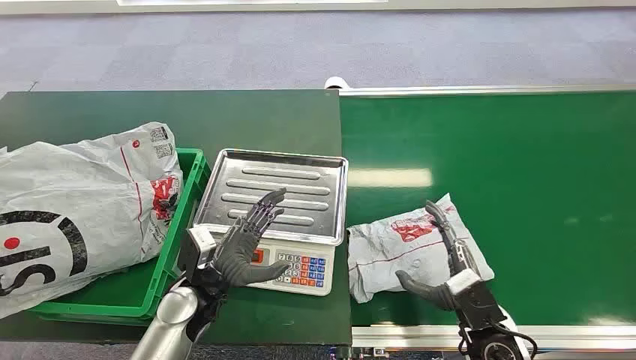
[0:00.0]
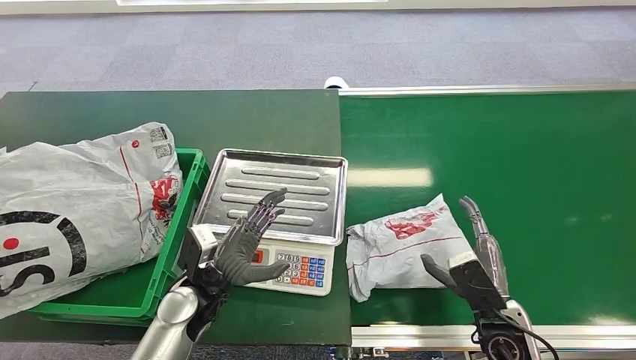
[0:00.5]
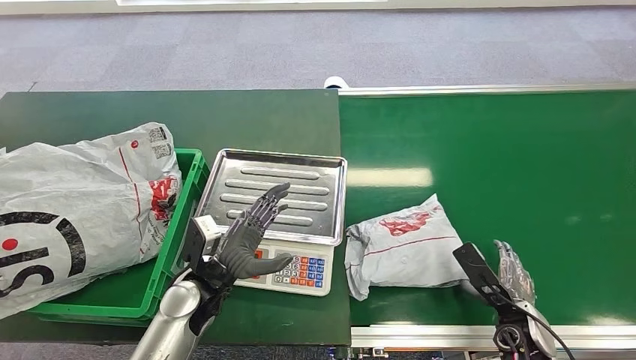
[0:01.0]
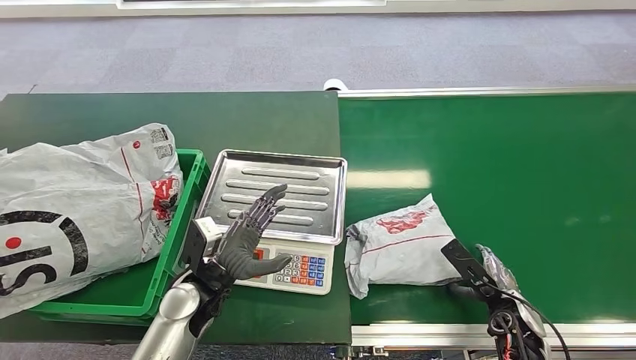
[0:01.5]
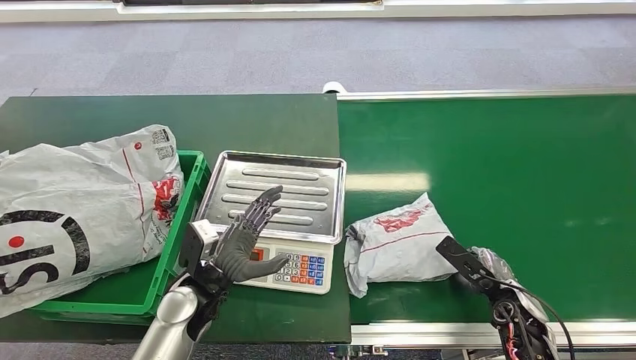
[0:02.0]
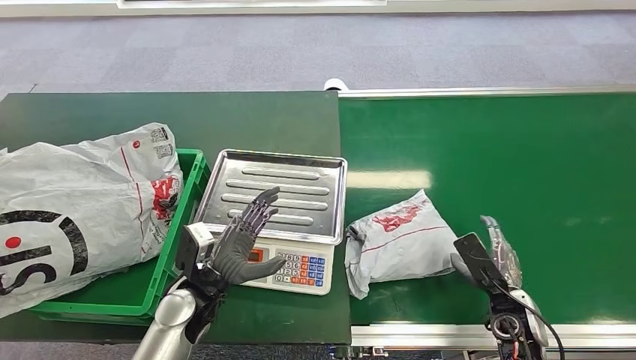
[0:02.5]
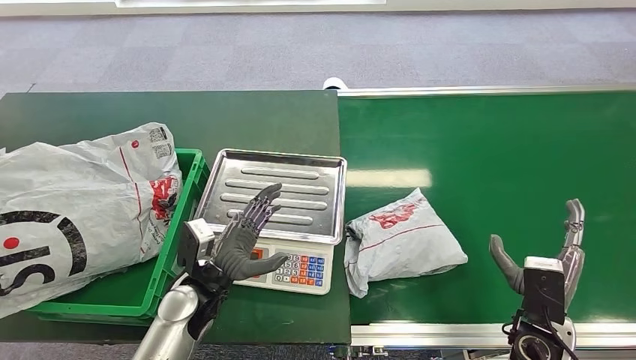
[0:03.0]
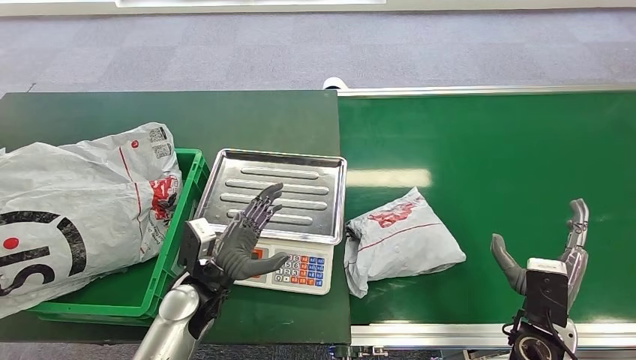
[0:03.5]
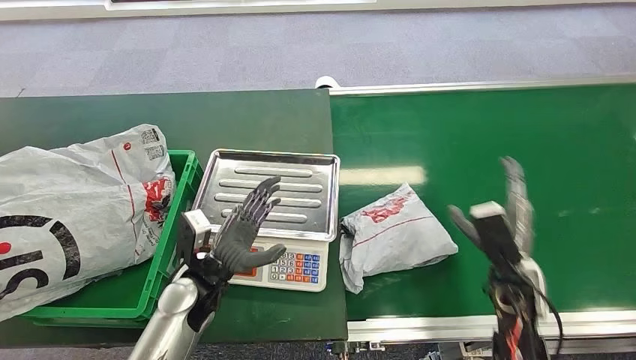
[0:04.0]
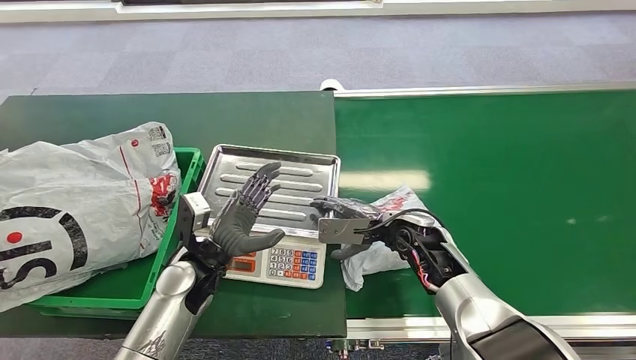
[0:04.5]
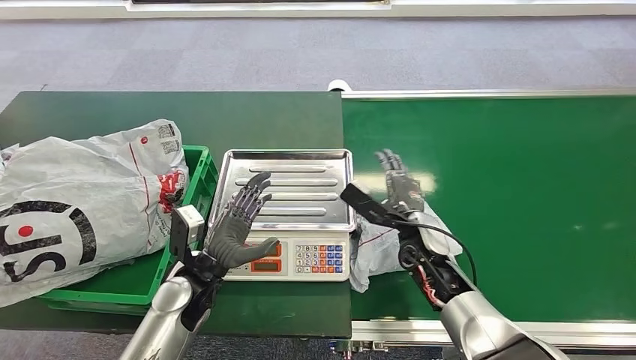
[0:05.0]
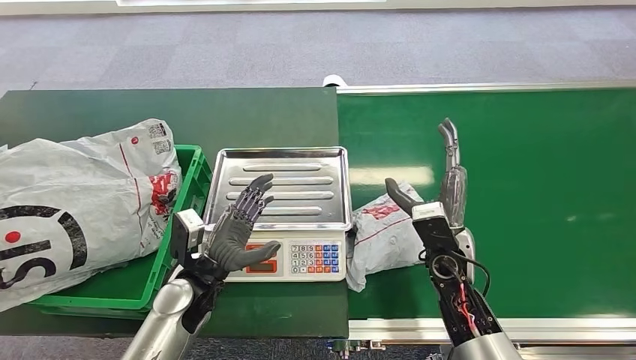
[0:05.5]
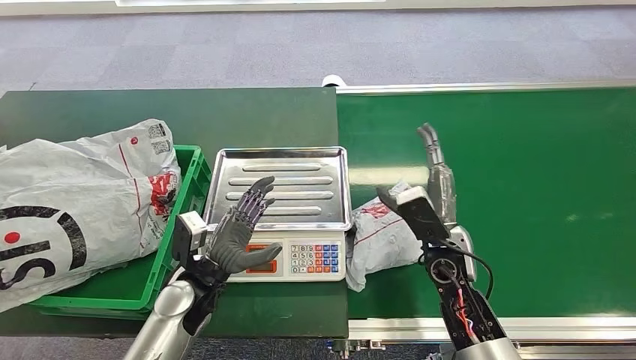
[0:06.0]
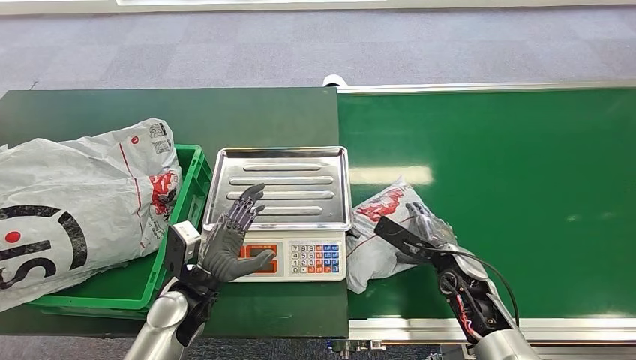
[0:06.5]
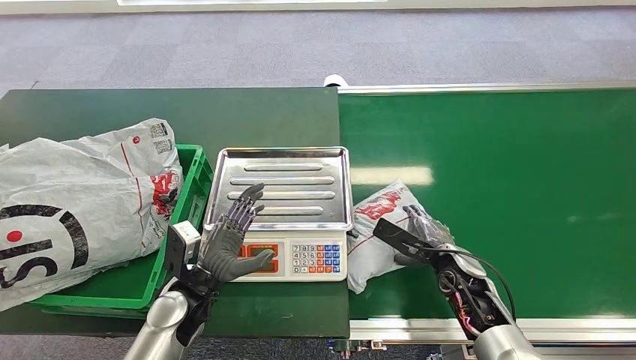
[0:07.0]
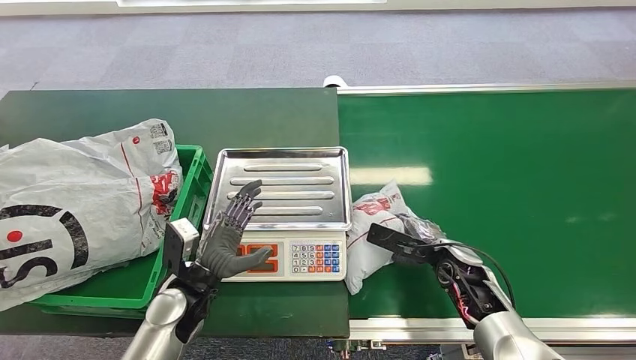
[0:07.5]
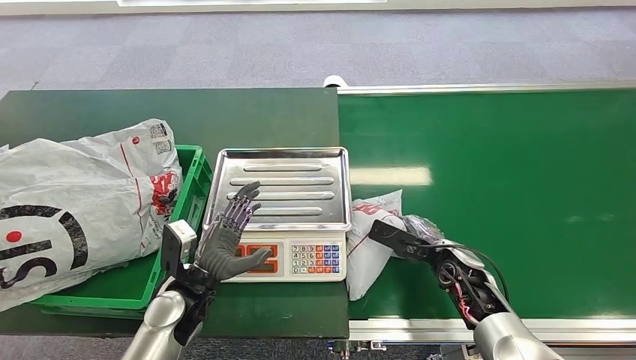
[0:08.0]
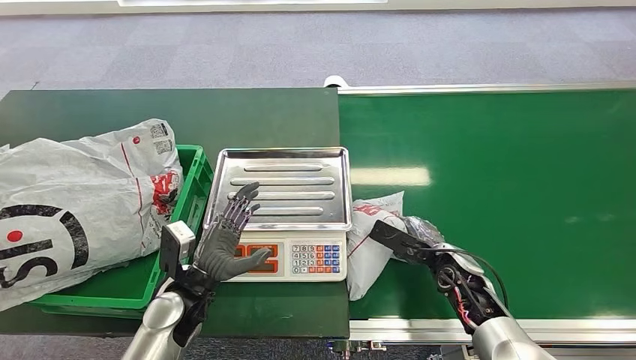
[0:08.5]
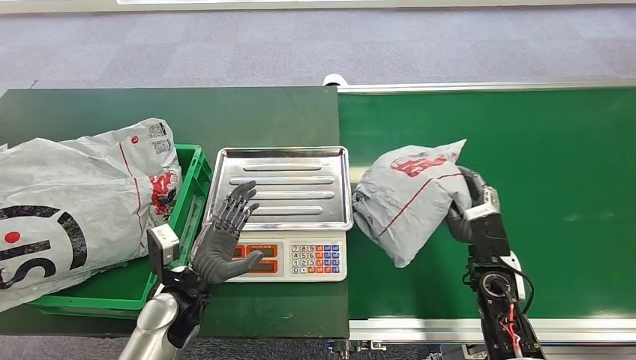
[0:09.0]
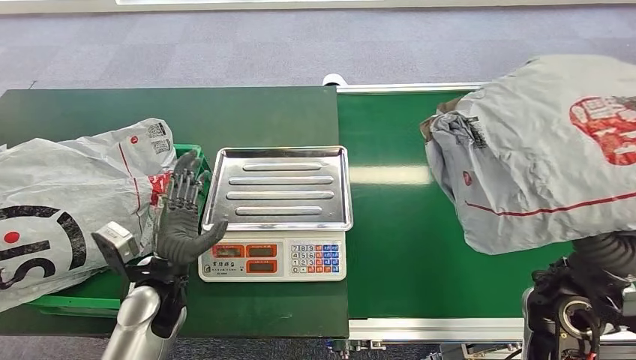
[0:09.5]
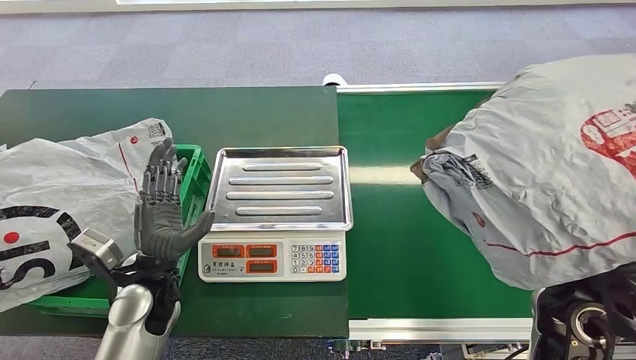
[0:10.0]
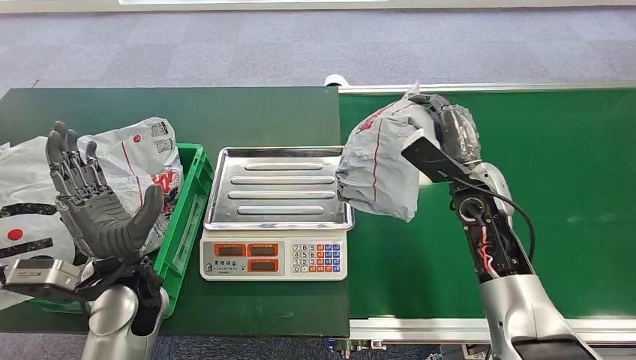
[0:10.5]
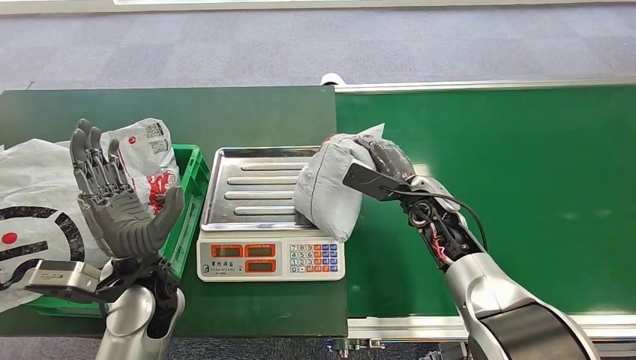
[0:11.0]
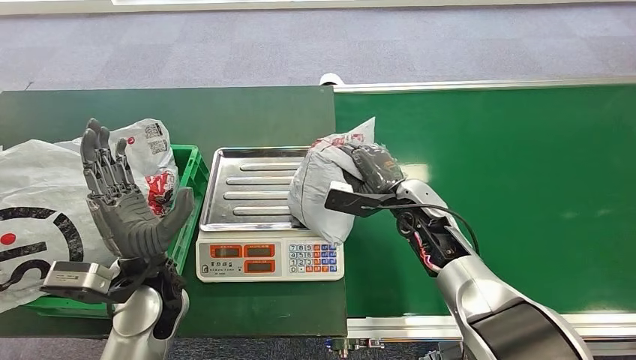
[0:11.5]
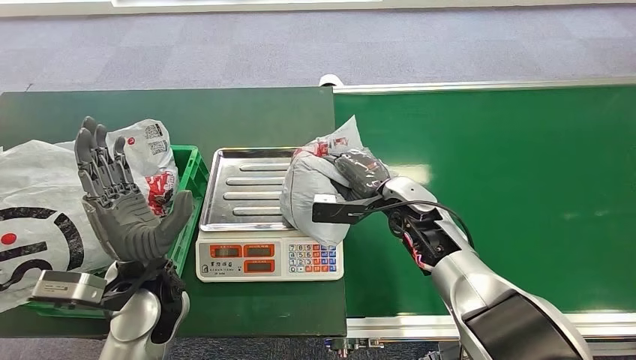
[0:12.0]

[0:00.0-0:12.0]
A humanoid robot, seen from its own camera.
Step, 0:00.0 to 0:09.0: Pick up the package from the conveyor belt.
0:06.0 to 0:08.0: The right hand is displaced downward and to the right by roughly 10 cm.

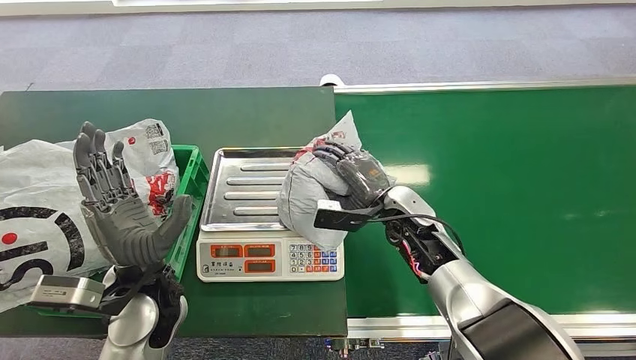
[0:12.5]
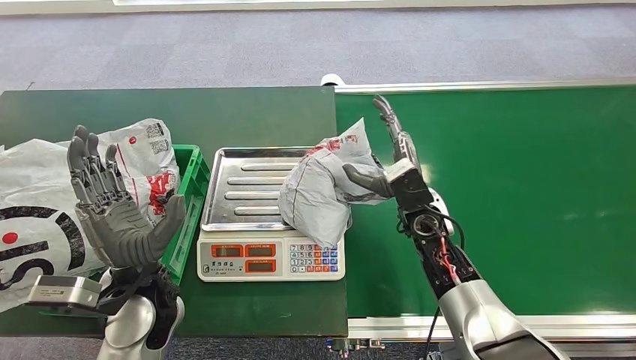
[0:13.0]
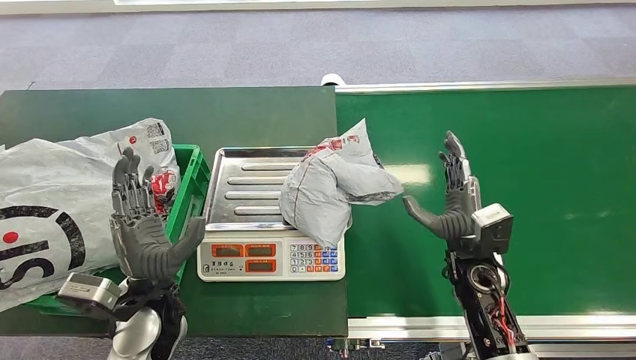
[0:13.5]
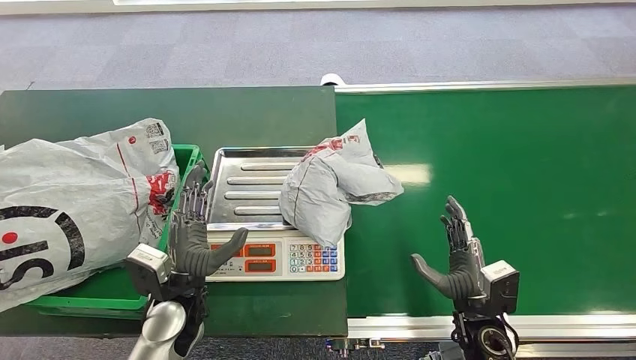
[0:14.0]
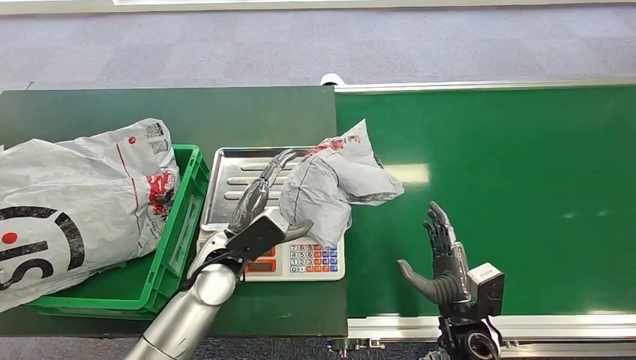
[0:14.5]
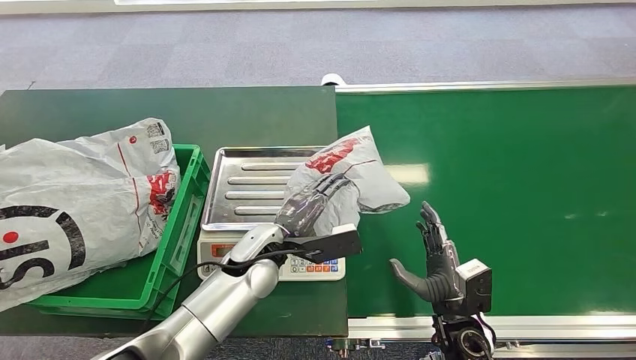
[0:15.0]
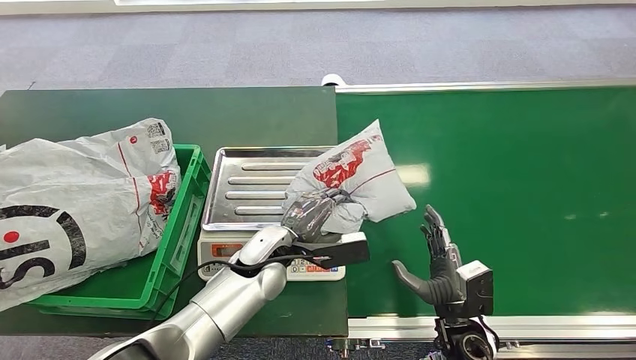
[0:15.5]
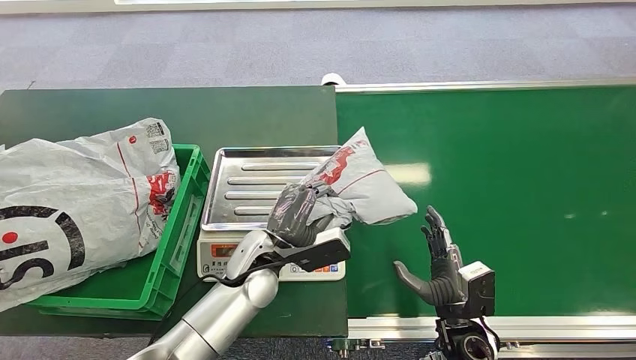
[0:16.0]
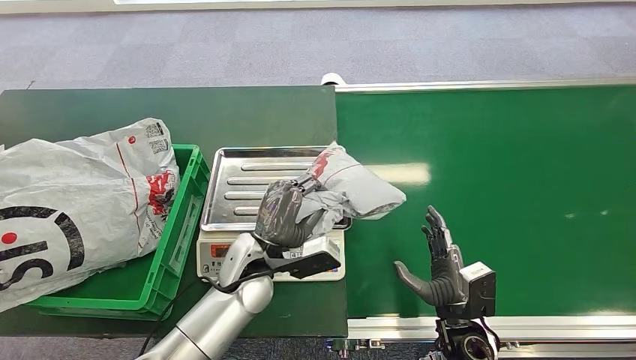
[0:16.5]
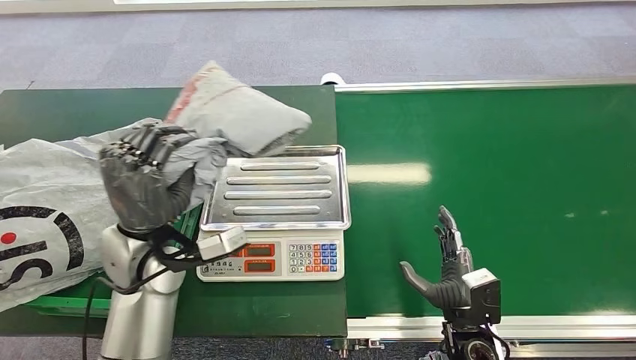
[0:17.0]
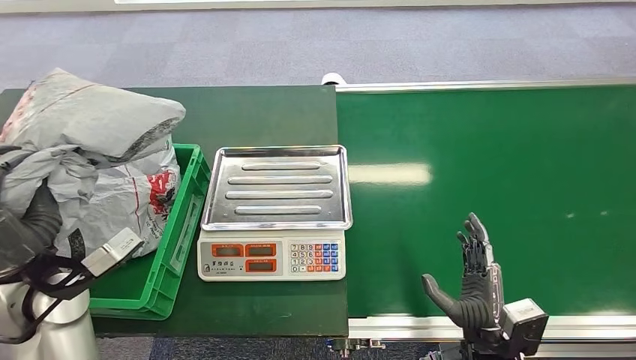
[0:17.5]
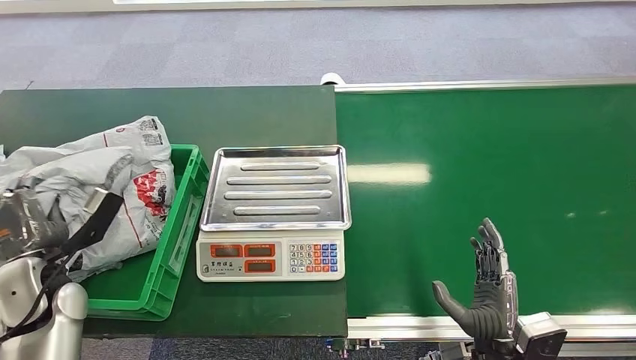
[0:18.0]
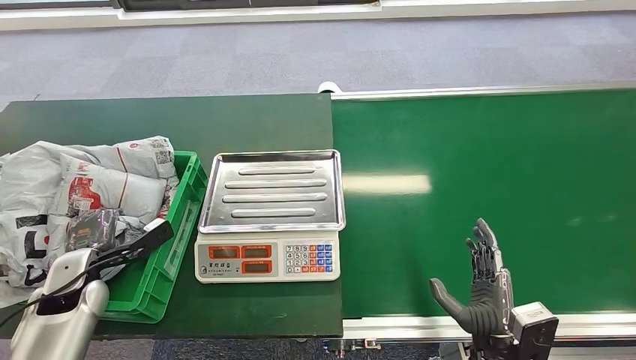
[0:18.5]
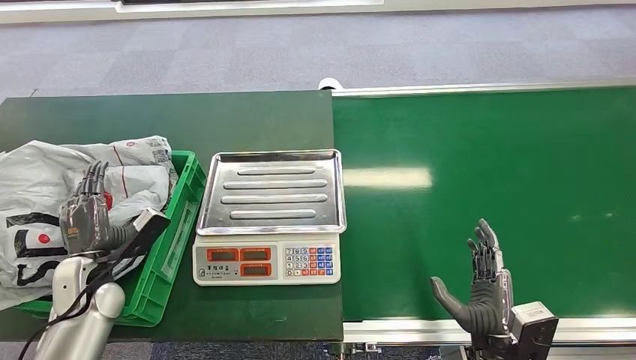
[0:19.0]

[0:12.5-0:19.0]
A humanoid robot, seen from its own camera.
Step, 0:14.0 to 0:17.0: Pick up the package from the inbound machine.
Step, 0:18.0 to 0:19.0: Place the package into the parcel locker.
0:14.5 to 0:17.0: The left hand moves upward and to the left, some 10 cm.

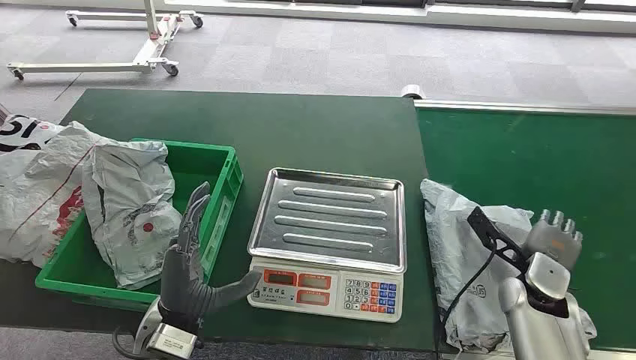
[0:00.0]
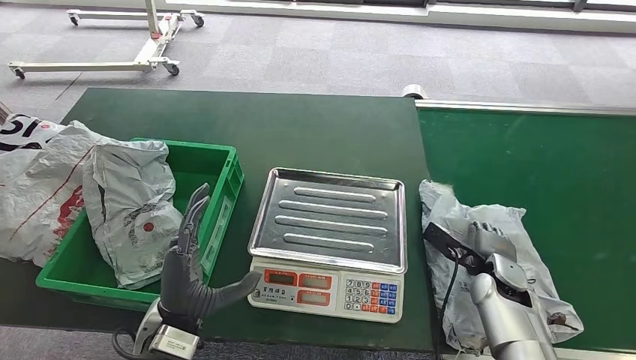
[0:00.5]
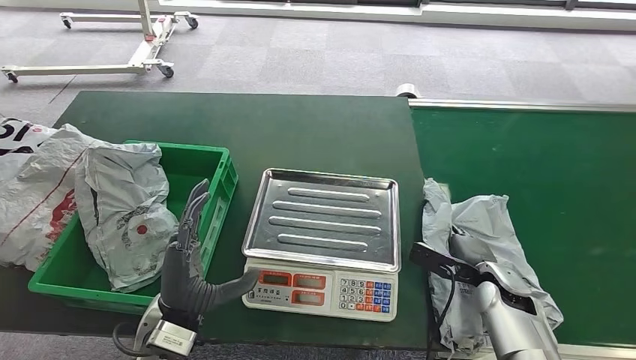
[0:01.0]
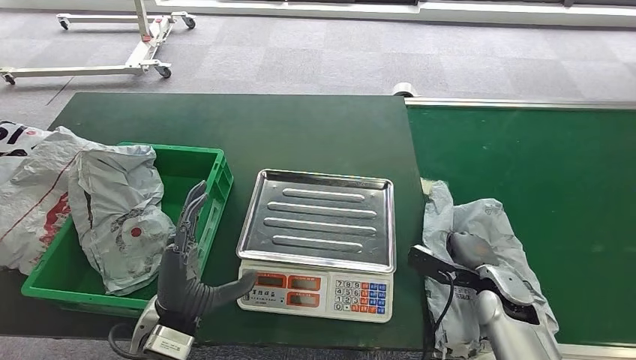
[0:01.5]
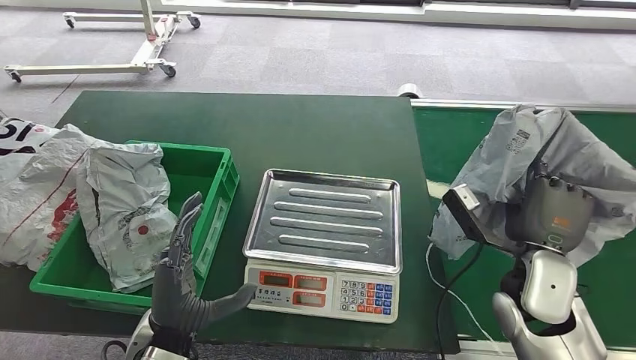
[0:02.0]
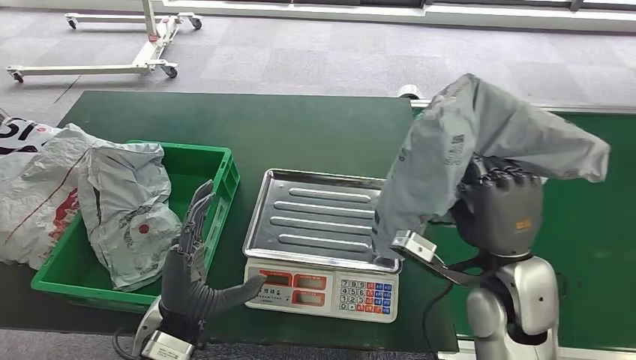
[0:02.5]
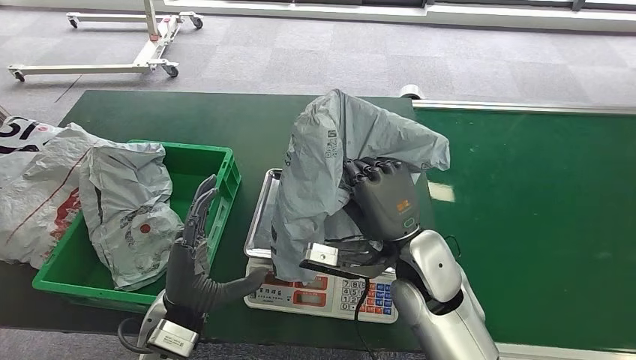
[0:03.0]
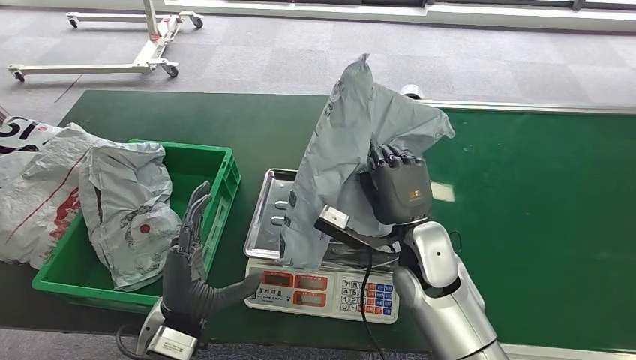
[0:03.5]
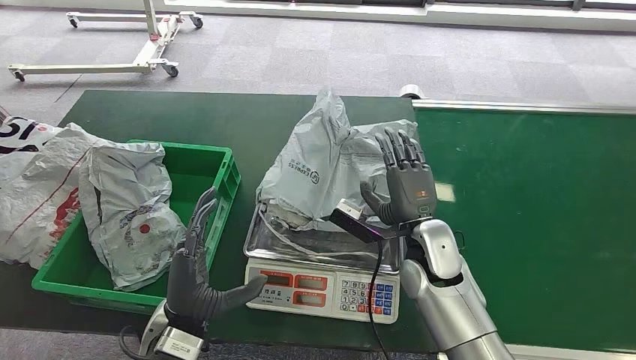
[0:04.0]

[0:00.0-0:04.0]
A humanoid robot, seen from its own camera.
Step, 0:00.0 to 0:02.0: Pick up the package from the conveyor belt.
